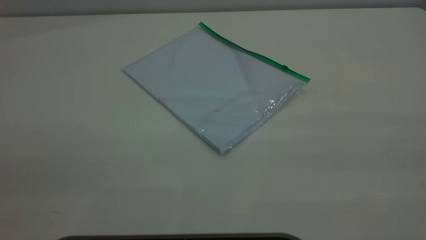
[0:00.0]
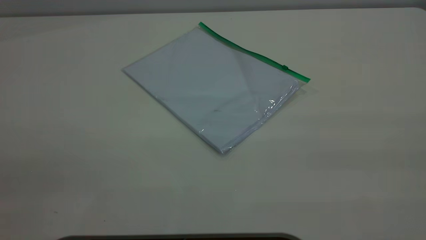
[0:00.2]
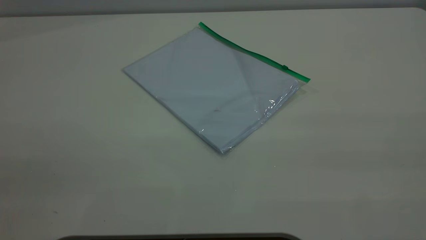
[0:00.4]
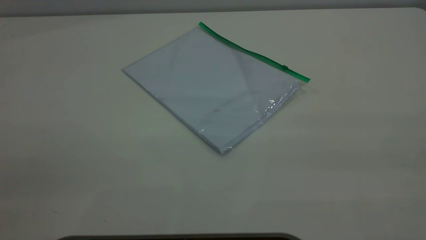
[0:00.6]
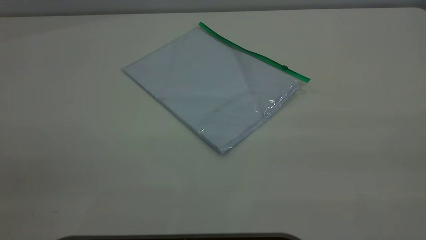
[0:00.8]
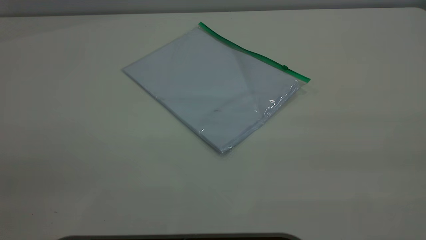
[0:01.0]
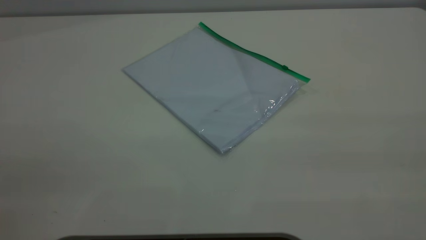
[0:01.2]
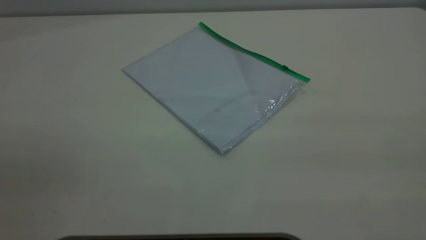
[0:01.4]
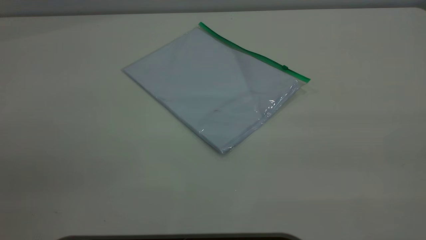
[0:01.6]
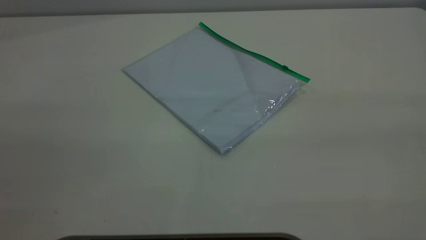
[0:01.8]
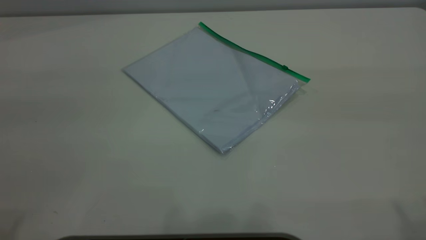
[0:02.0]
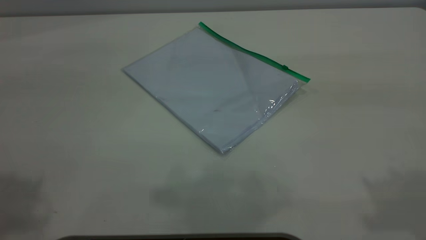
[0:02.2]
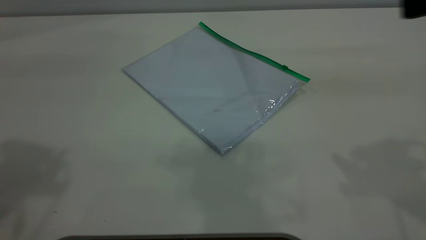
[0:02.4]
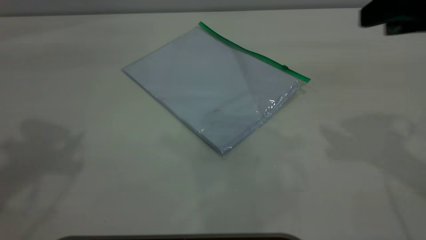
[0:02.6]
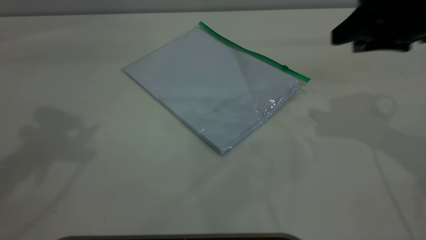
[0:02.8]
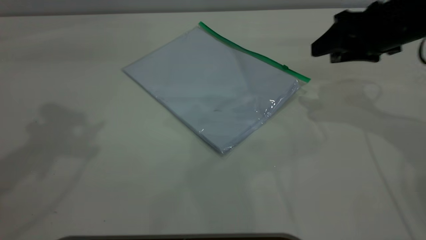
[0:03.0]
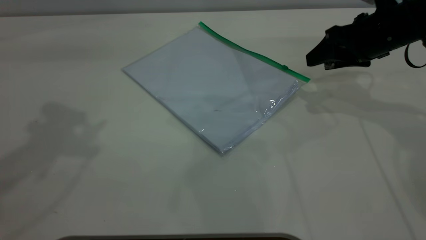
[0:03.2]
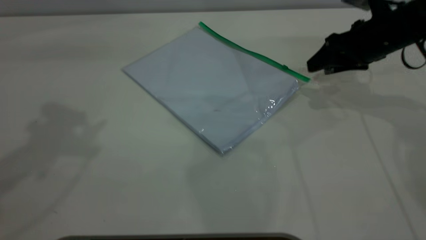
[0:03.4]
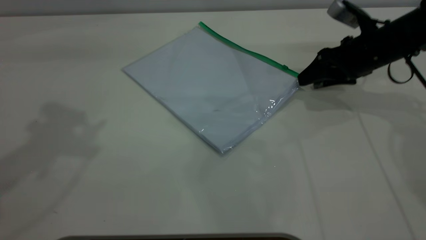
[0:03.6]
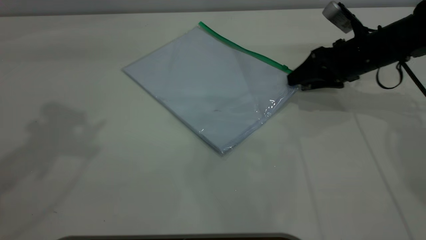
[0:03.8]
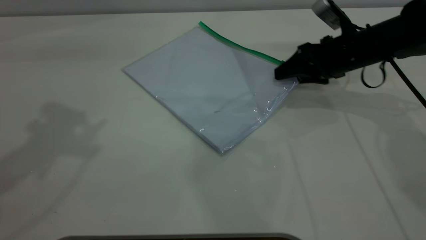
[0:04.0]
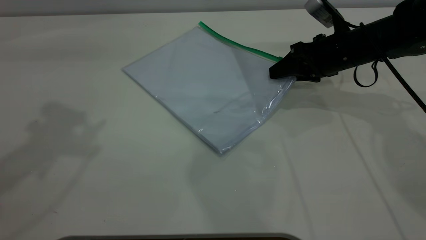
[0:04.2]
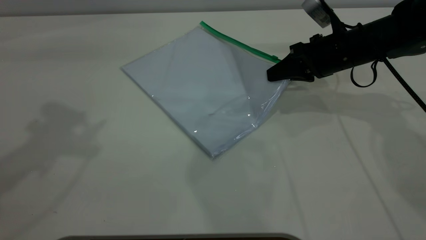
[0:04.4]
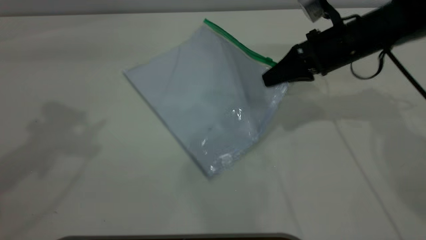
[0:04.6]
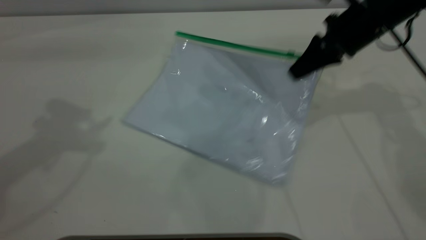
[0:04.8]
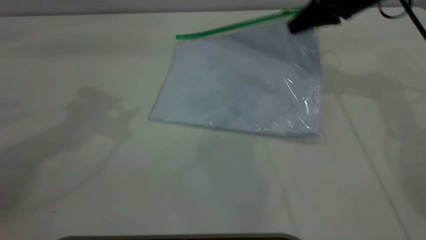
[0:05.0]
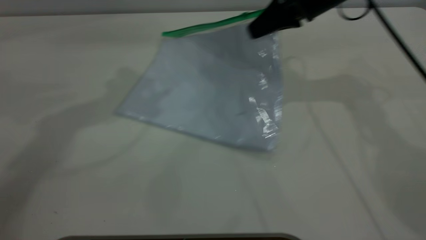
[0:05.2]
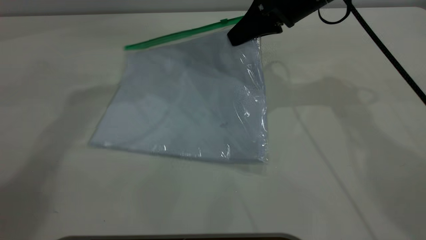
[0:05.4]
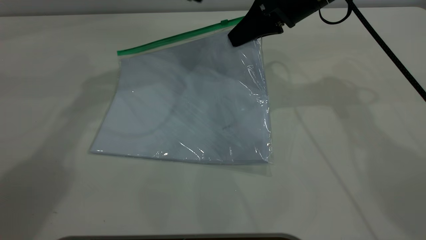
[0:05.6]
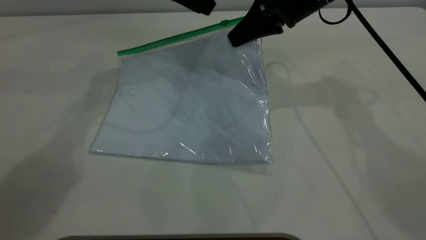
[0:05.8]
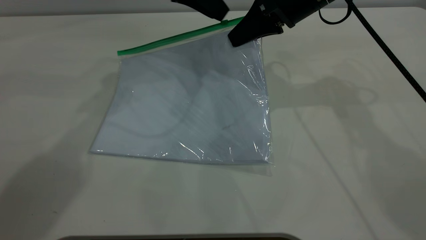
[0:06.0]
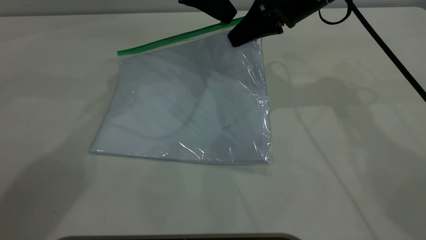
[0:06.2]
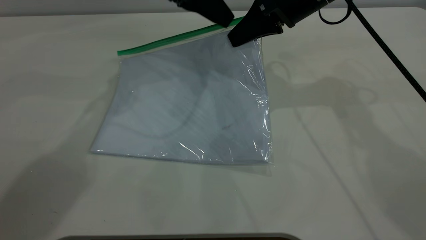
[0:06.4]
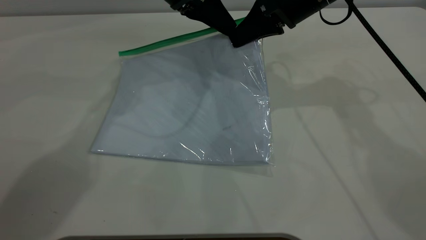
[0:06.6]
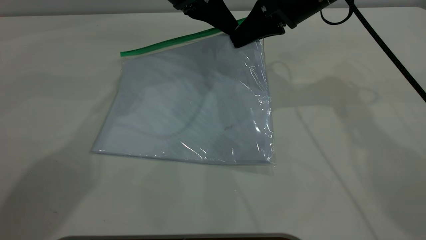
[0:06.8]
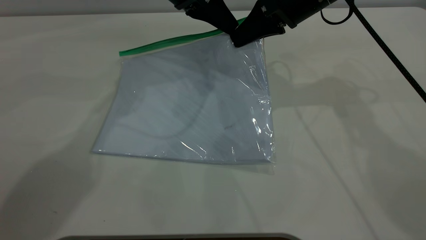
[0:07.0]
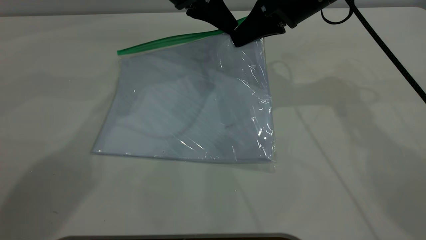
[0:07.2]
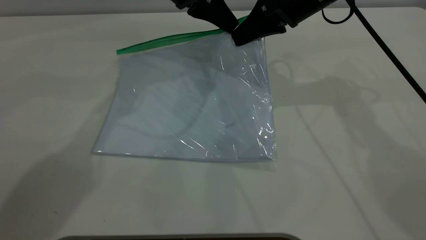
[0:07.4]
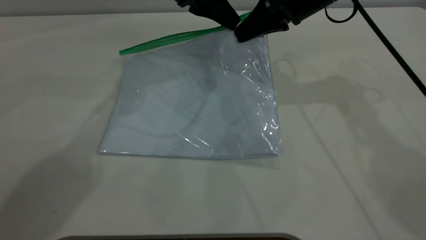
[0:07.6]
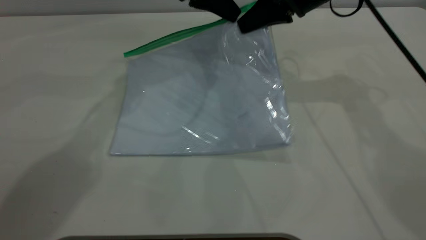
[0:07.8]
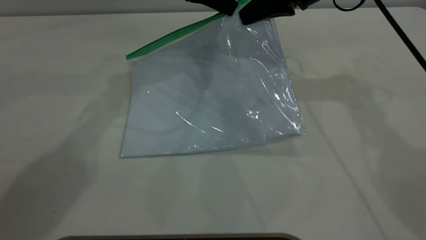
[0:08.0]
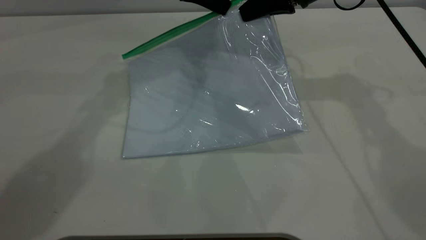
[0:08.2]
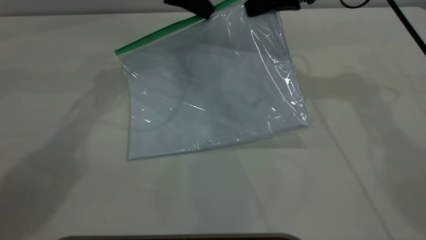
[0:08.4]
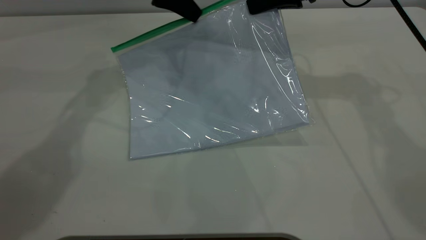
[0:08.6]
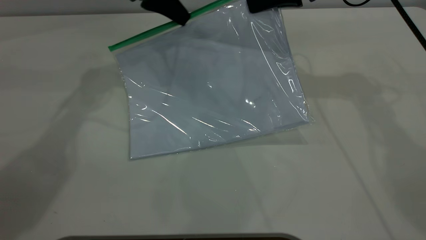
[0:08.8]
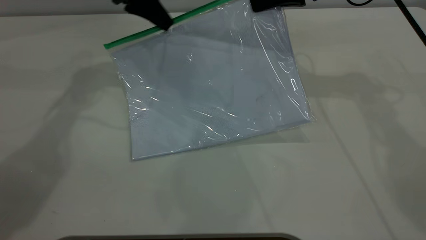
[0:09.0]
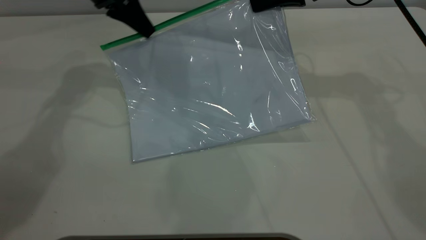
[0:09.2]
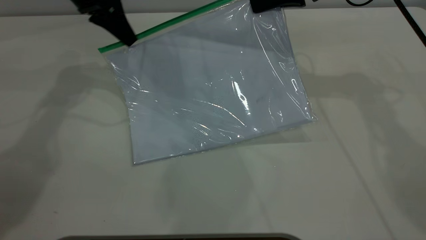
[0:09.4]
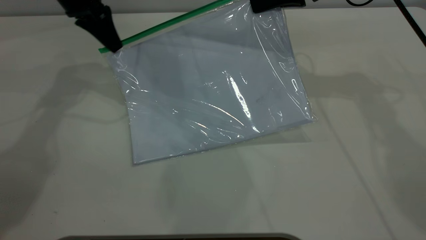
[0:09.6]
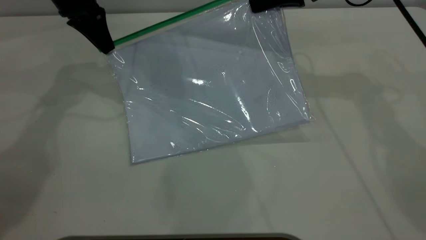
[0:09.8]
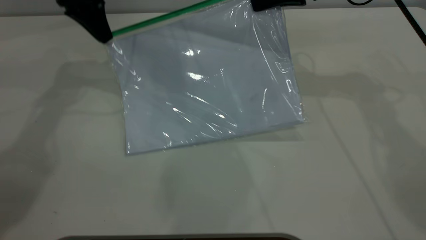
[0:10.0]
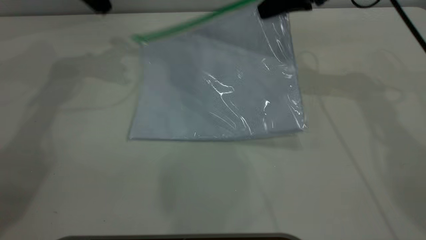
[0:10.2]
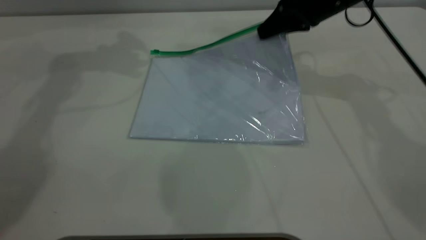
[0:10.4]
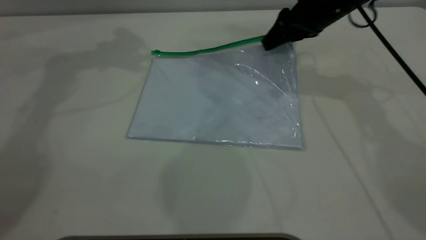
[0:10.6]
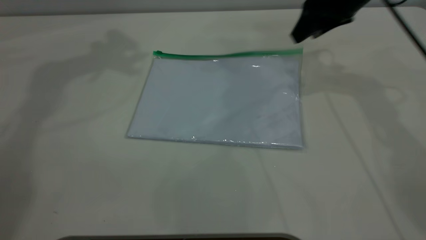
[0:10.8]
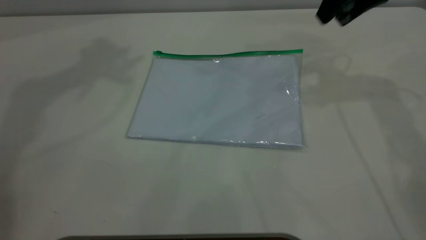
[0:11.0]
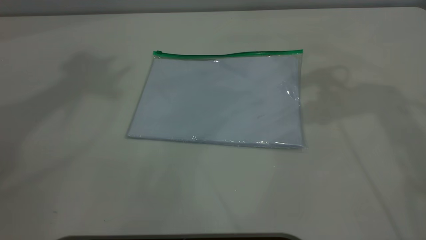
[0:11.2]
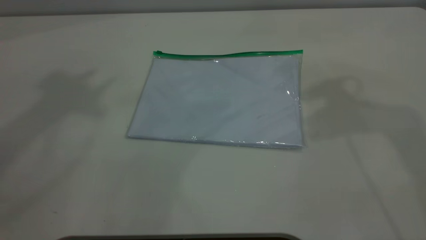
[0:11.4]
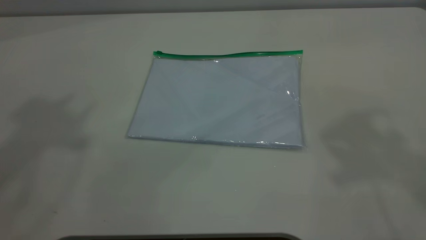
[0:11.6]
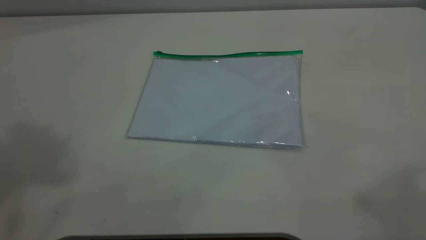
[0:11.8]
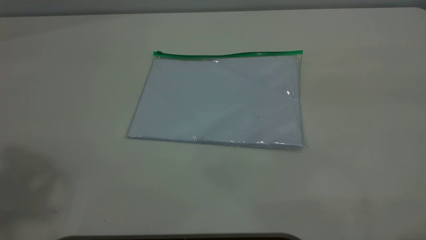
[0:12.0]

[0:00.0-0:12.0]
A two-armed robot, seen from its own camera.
Step, 0:00.0 to 0:04.4: Pick up the transparent plastic bag with the right gripper.
Step, 0:04.6 to 0:10.0: Pulling up the zipper on the transparent plastic bag with the left gripper to close it.
Step, 0:10.2 to 0:10.8: Place the transparent plastic bag.
0:00.0 to 0:01.6: Both grippers stay put.
0:01.6 to 0:03.0: The right gripper heads forward and downward, covering some 40 cm.
0:03.0 to 0:04.4: The right gripper is displaced downward by roughly 5 cm, and closes its fingers.
0:04.4 to 0:06.0: The right gripper shifts roughly 10 cm upward and to the left. Meanwhile the left gripper shifts approximately 30 cm to the right, forward and downward.
0:06.0 to 0:07.6: The left gripper closes up.
0:07.6 to 0:09.0: The left gripper travels to the left by approximately 10 cm.
0:09.0 to 0:10.4: The left gripper travels upward by roughly 10 cm, and opens, while the right gripper opens its fingers.
0:10.4 to 0:12.0: Both grippers move backward and upward, some 40 cm. The right gripper opens up.
